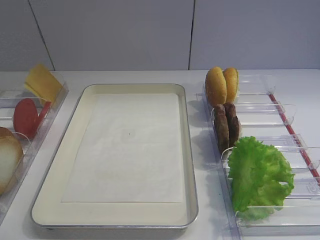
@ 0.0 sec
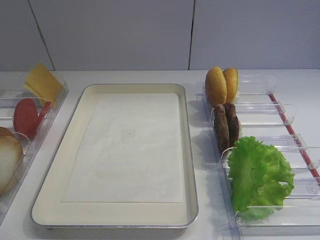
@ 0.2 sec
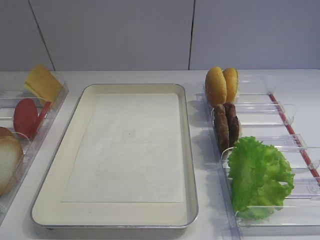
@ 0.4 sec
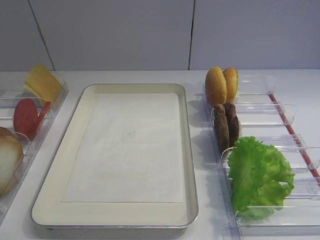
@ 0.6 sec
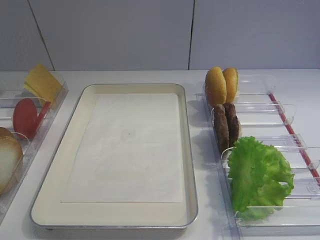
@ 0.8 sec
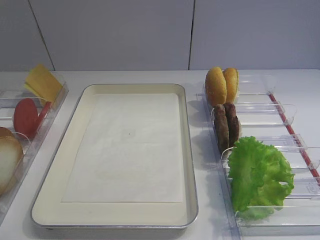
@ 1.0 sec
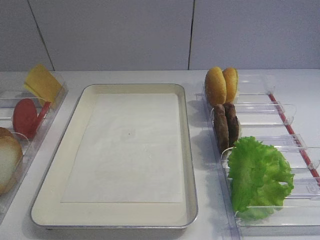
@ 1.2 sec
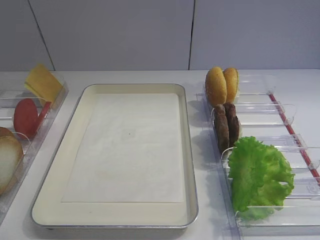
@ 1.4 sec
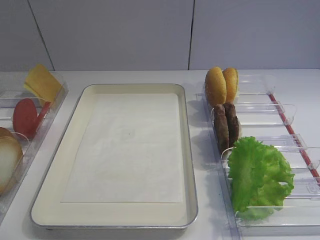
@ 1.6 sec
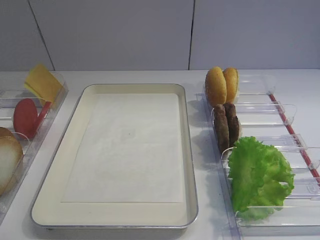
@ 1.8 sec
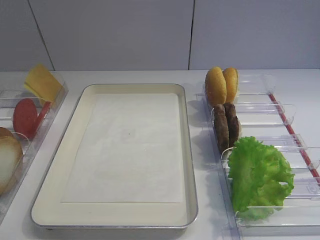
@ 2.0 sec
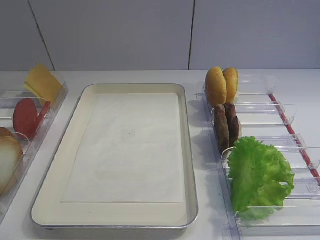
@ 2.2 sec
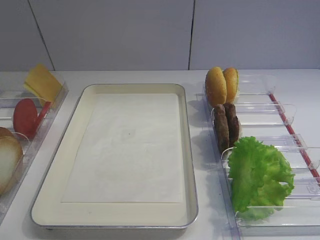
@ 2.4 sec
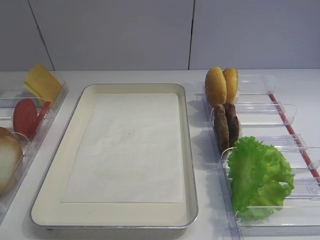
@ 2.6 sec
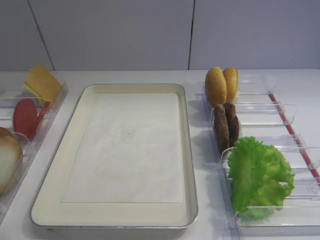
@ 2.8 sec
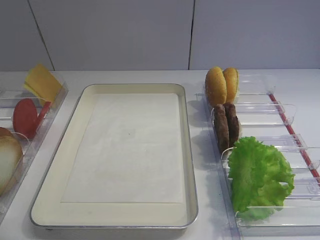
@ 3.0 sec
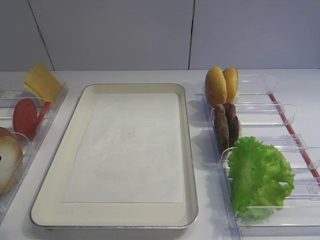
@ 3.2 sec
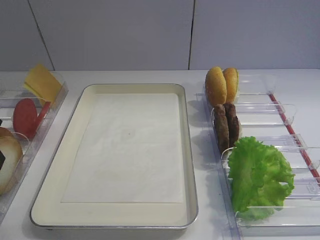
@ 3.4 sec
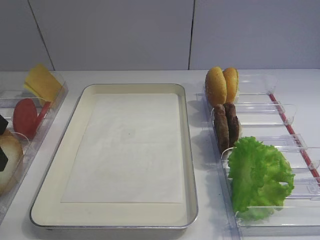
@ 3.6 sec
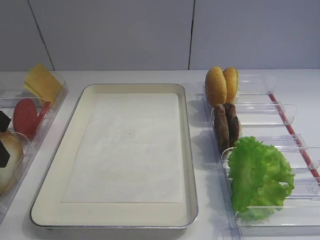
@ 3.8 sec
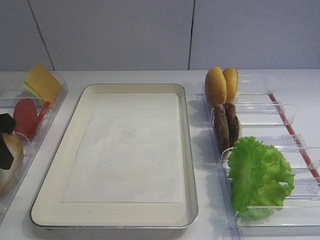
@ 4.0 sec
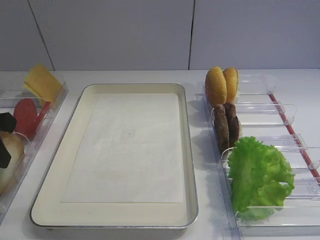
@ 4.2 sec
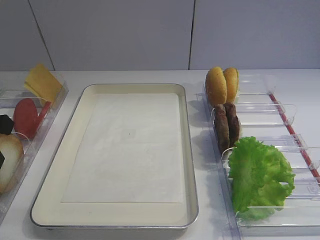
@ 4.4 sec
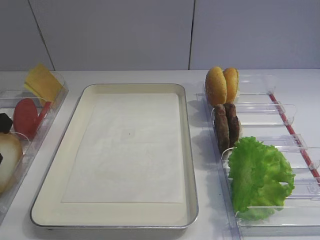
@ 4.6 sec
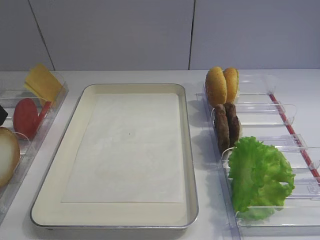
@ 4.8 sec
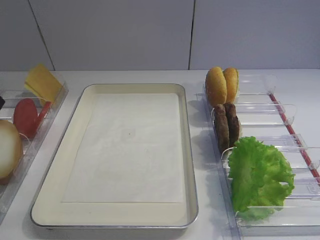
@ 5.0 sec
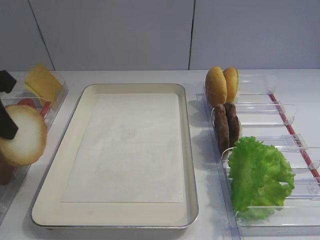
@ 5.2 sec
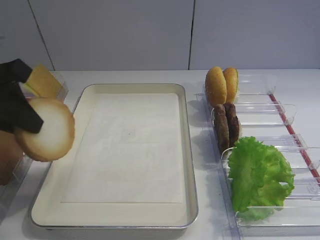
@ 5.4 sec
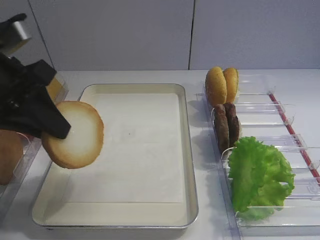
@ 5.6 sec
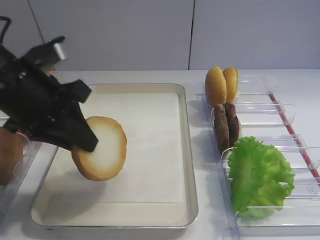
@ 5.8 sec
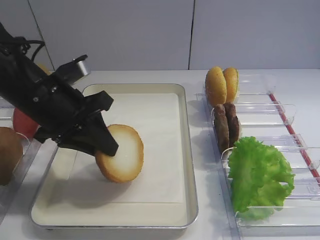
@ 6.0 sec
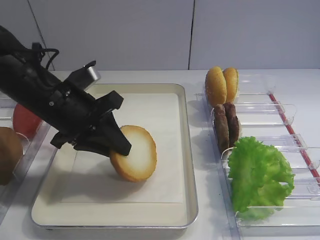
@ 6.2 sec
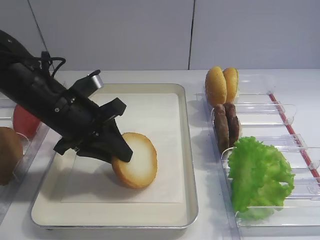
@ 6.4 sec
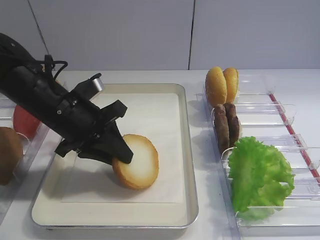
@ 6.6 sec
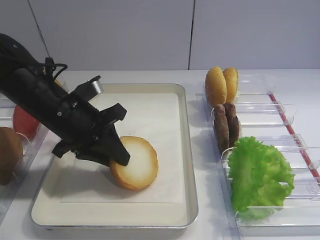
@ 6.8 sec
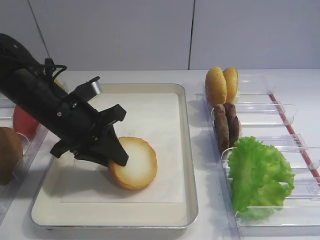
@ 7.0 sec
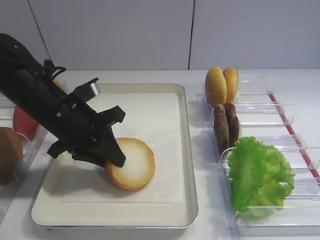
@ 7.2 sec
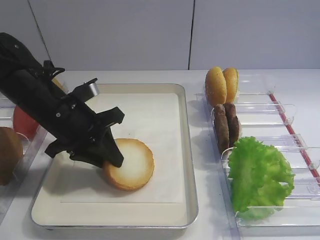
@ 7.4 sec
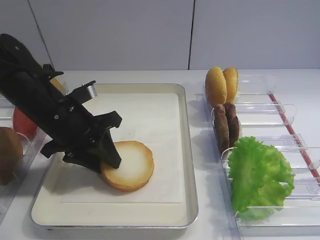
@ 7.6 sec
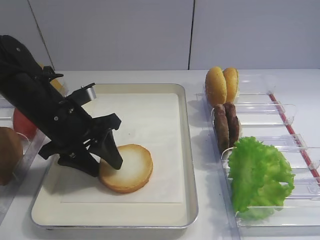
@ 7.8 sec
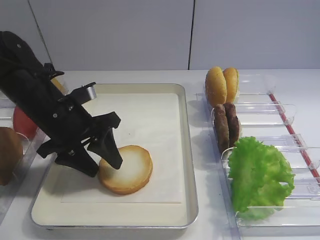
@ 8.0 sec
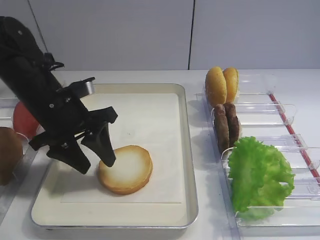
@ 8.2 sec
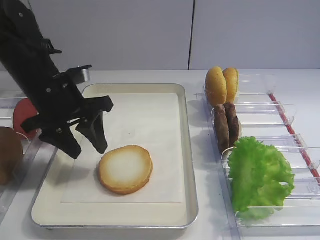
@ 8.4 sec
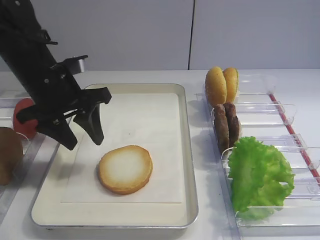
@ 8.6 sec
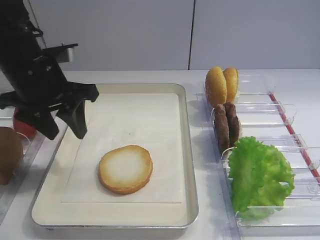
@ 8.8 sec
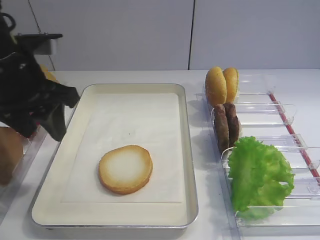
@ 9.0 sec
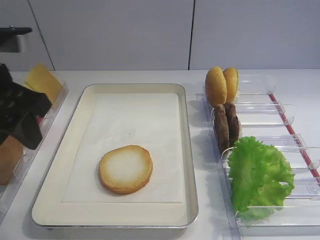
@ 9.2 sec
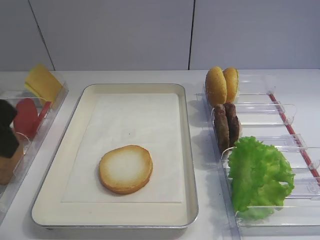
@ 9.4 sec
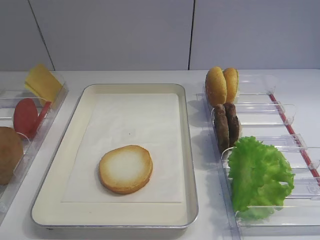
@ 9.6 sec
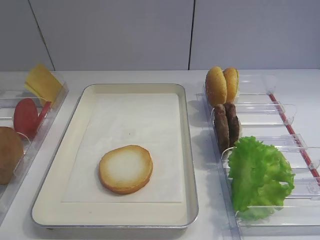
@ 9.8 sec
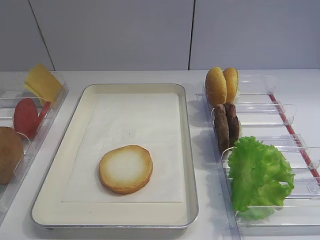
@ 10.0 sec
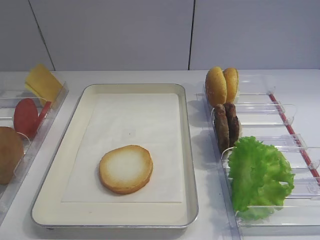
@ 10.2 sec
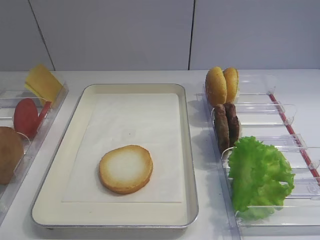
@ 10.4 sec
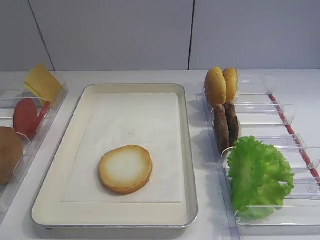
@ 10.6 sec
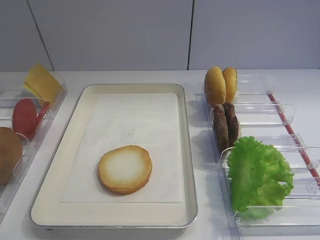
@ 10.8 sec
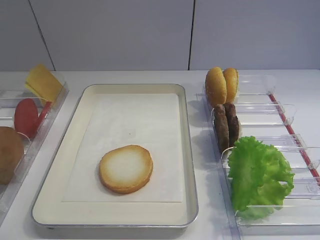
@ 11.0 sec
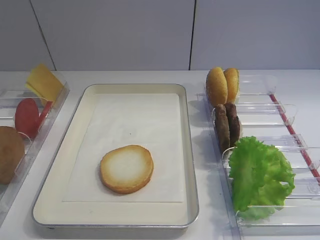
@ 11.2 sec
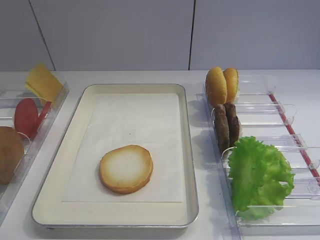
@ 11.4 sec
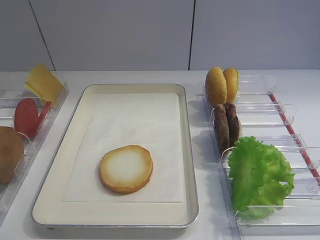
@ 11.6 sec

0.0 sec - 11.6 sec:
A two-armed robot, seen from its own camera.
Step, 0.0 sec - 5.2 sec: Pick up the bread slice with the left gripper.
Step, 5.4 sec - 8.2 sec: Place the bread slice on the tray with the left gripper.
4.4 sec - 5.8 sec: The left gripper is displaced to the right by about 10 cm.
5.8 sec - 7.2 sec: The left gripper is displaced downward by roughly 10 cm.
7.2 sec - 8.8 sec: The left gripper travels upward by some 5 cm, and opens.
8.8 sec - 10.2 sec: The left gripper shifts approximately 30 cm backward.
